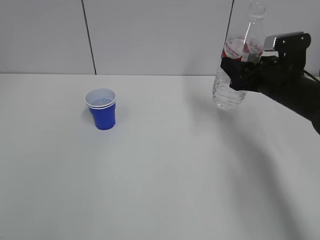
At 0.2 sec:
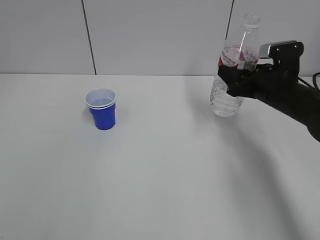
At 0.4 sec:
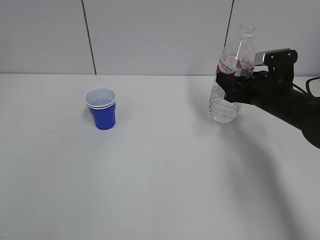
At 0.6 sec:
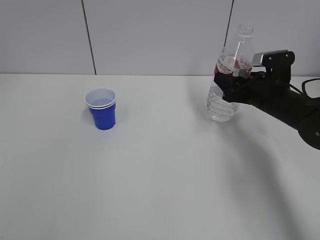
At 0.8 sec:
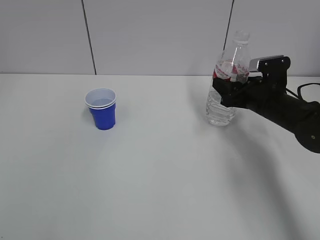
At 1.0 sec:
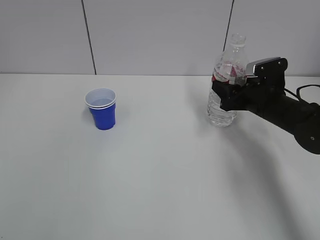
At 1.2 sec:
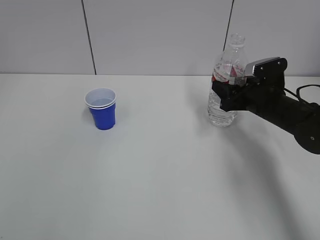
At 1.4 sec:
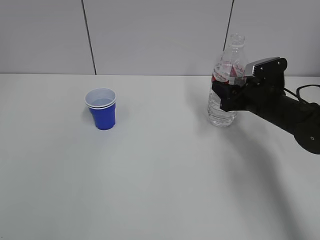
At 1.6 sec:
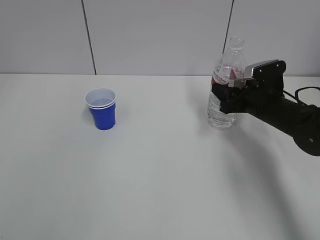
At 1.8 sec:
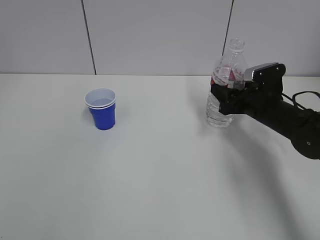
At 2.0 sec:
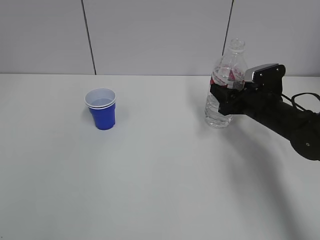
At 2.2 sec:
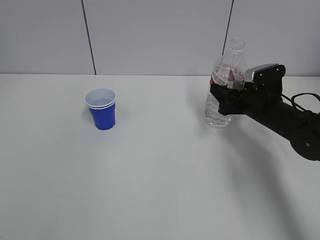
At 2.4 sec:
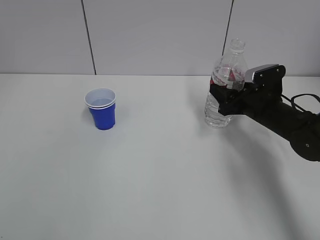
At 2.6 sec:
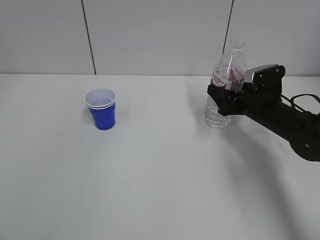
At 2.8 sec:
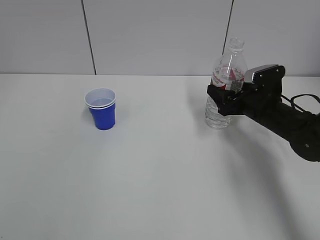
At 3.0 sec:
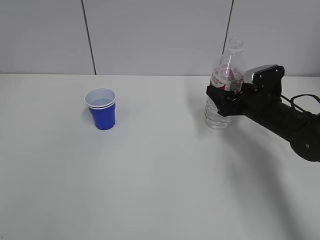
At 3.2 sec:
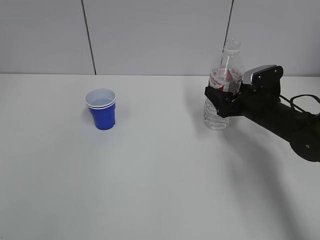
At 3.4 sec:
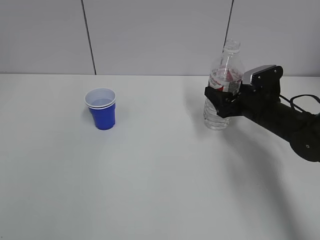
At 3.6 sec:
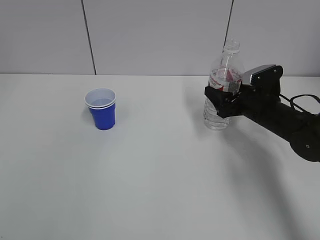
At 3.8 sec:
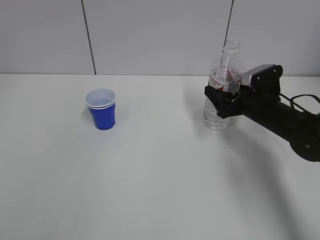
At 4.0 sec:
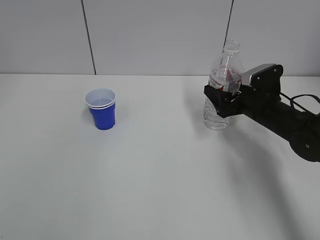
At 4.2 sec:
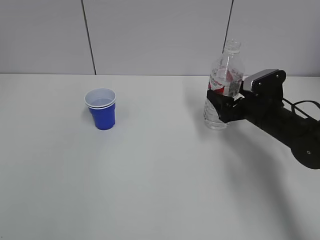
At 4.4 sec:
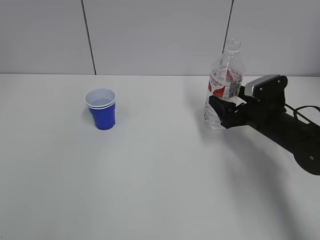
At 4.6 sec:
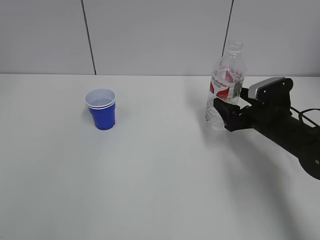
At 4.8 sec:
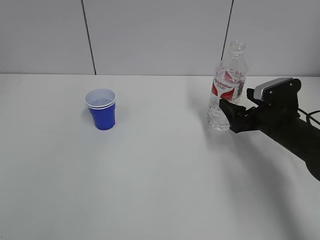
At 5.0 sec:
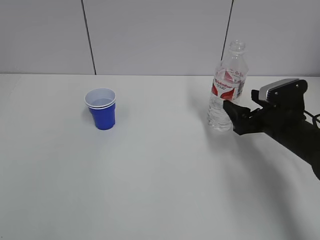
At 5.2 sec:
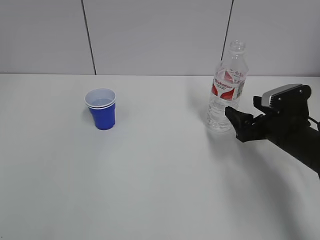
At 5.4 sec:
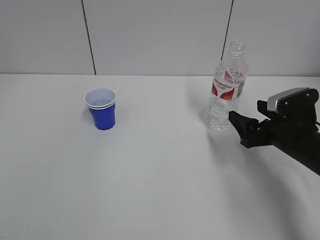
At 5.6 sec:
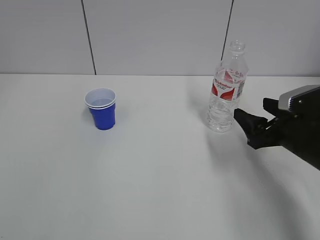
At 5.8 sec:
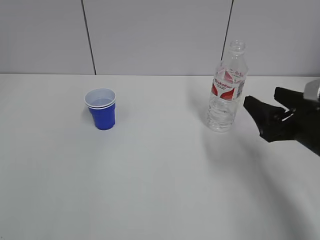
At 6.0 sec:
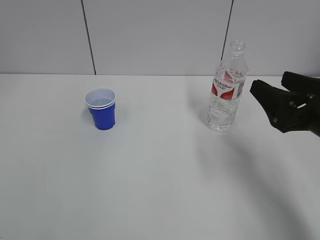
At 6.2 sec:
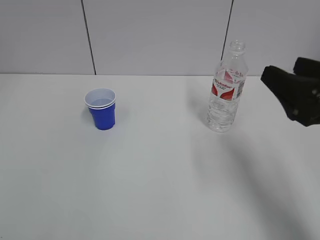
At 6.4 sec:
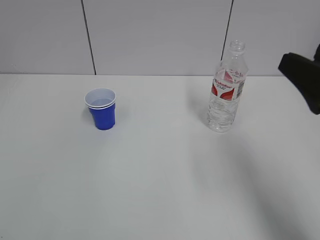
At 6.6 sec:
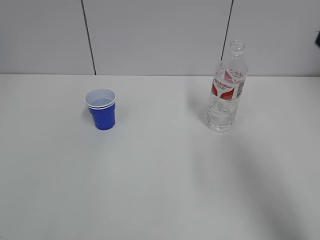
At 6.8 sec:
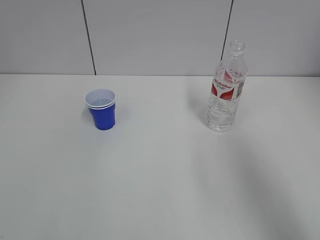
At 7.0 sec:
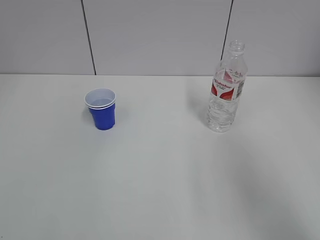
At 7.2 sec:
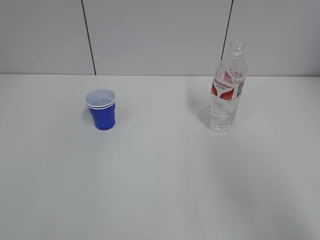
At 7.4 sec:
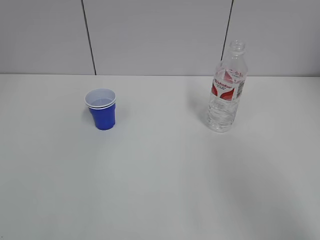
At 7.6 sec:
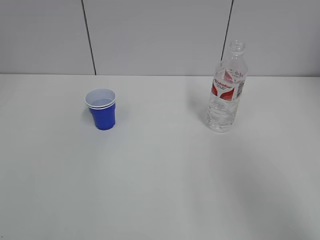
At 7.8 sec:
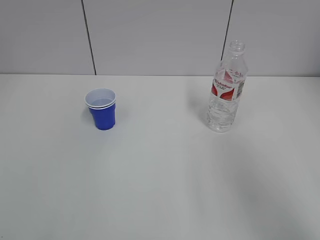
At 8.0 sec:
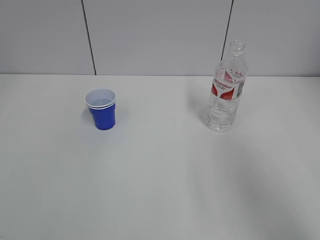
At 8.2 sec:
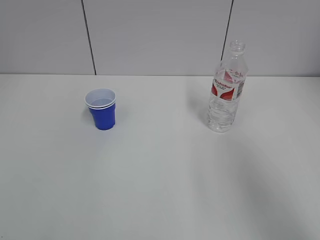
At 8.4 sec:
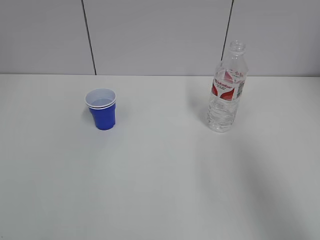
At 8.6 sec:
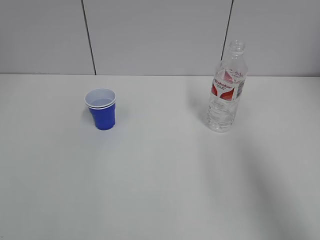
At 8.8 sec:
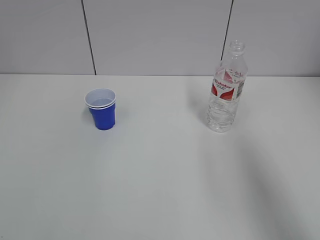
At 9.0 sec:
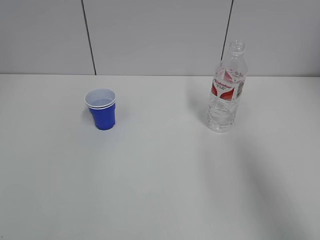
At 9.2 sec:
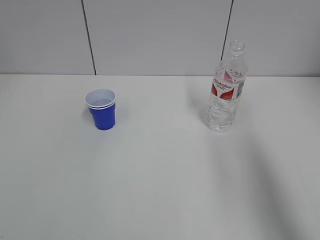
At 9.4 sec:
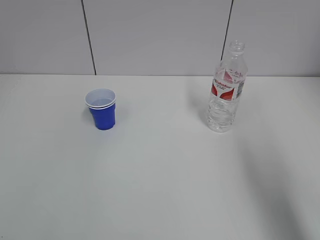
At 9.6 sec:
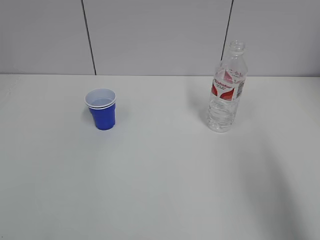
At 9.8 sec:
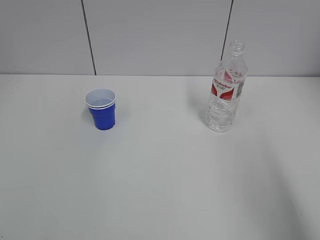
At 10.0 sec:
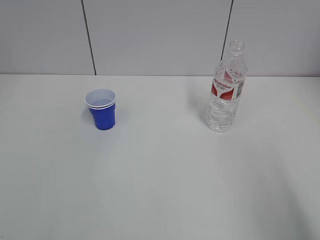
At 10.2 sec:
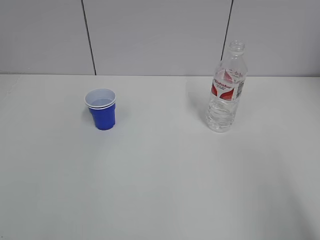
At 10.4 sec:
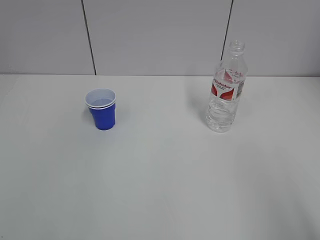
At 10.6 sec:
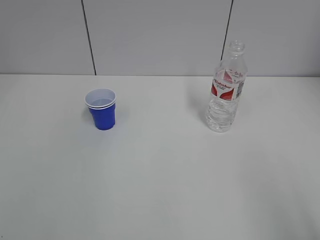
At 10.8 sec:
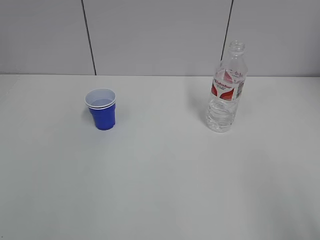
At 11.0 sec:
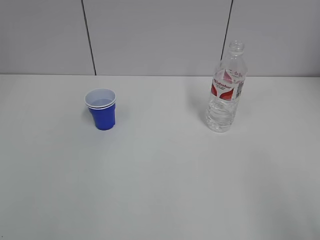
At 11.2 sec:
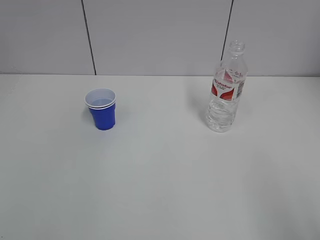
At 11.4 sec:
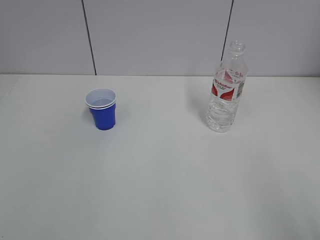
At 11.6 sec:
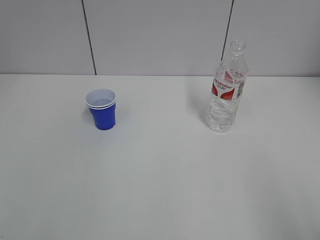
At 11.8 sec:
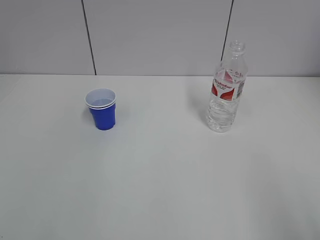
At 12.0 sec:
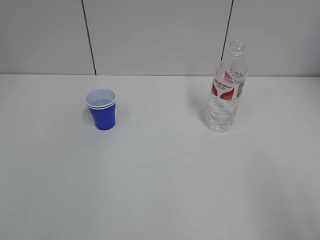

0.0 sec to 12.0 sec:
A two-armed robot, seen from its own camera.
Step, 0.0 sec to 5.0 sec: Place the water bottle with the right hand.
0.0 sec to 1.6 sec: The right gripper is displaced downward by roughly 5 cm.
1.6 sec to 3.0 sec: The right gripper opens.
3.0 sec to 4.4 sec: The grippers stay close to where they were, moving slightly.
4.4 sec to 6.0 sec: The right gripper travels backward and upward by some 20 cm.
6.0 sec to 7.6 sec: The right gripper is displaced upward and backward by approximately 20 cm.

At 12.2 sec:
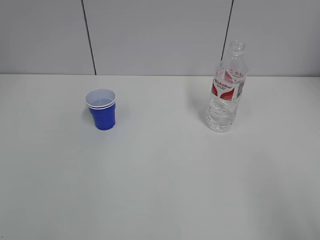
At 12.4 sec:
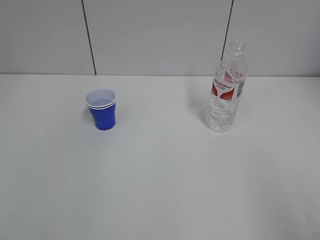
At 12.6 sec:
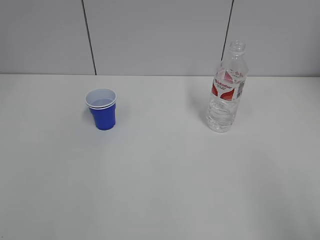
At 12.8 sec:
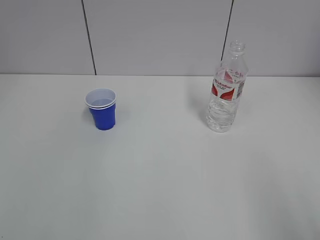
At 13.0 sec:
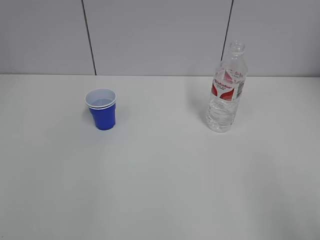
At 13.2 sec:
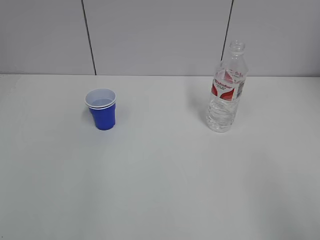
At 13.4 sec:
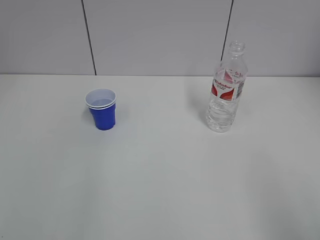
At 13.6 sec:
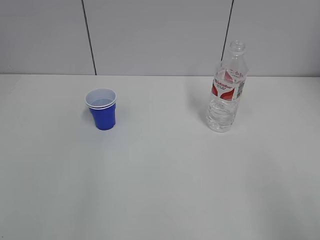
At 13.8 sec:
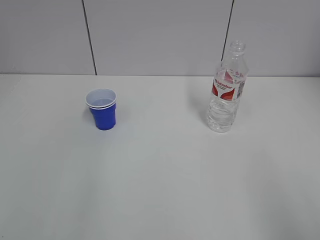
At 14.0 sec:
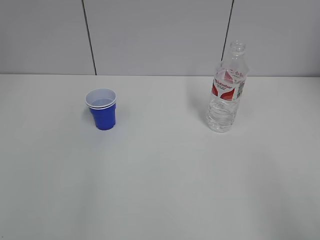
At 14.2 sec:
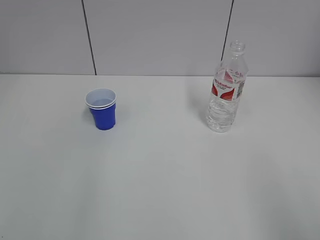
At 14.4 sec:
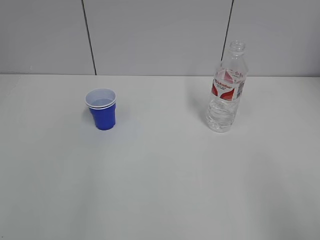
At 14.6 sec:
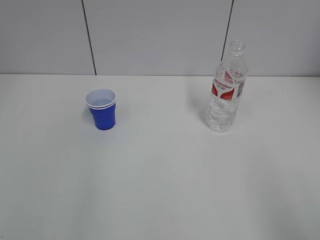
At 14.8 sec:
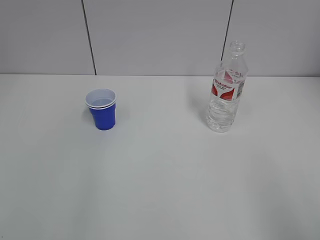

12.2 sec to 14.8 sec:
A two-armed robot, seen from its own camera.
13.4 sec to 14.8 sec: Both grippers stay put.
